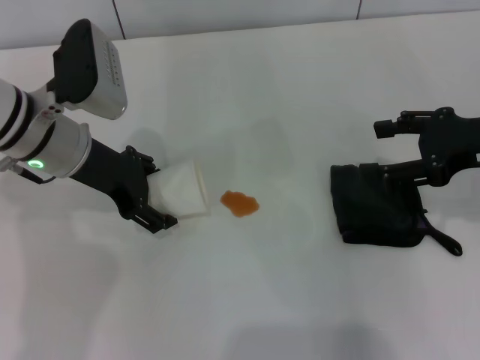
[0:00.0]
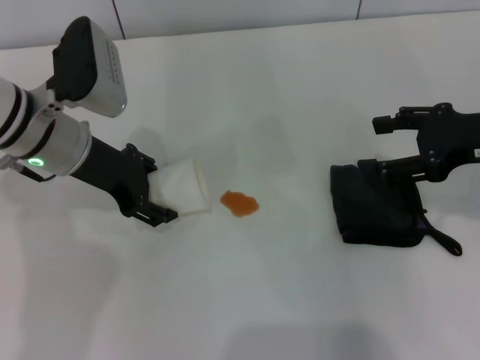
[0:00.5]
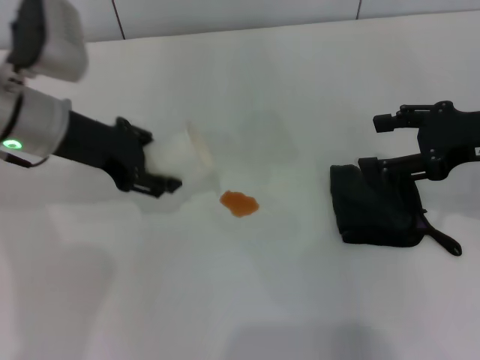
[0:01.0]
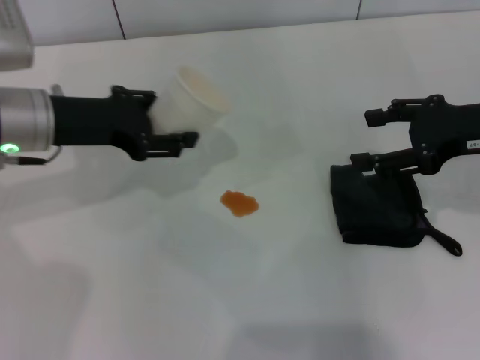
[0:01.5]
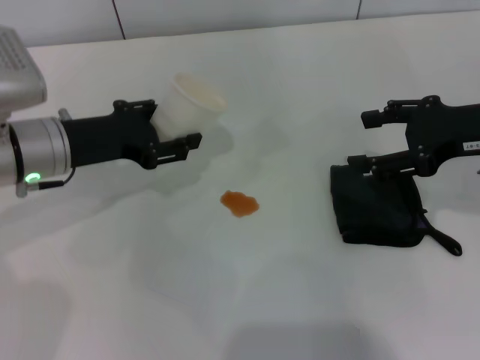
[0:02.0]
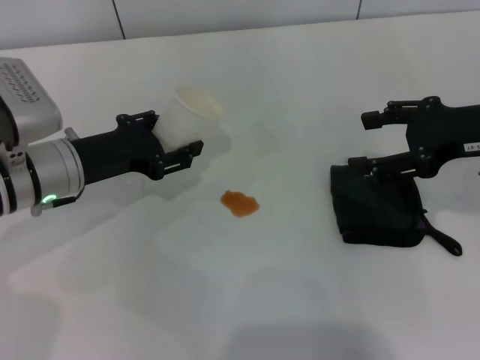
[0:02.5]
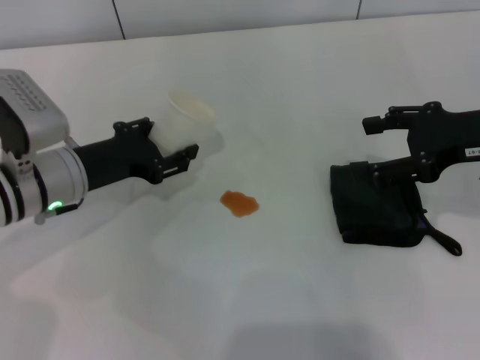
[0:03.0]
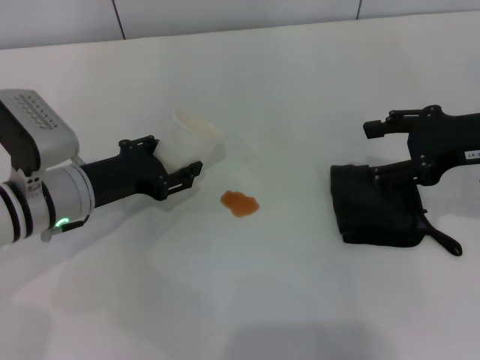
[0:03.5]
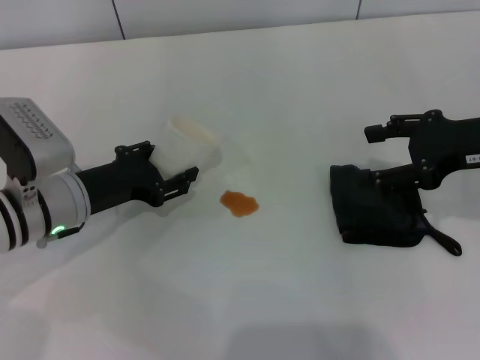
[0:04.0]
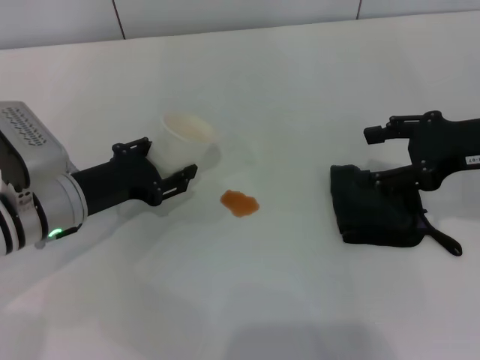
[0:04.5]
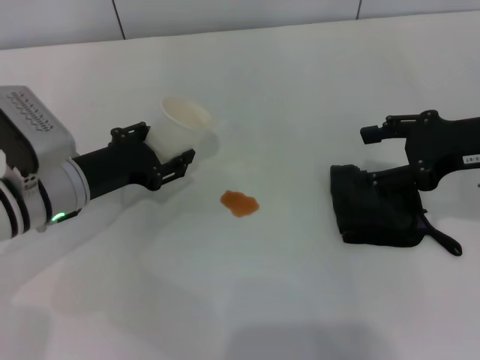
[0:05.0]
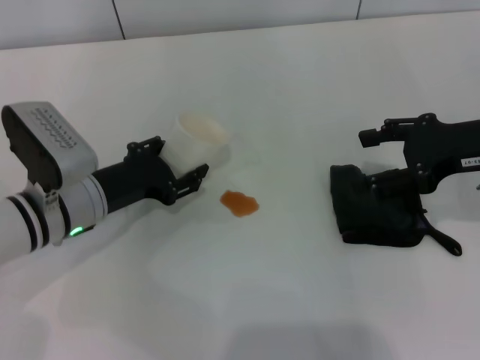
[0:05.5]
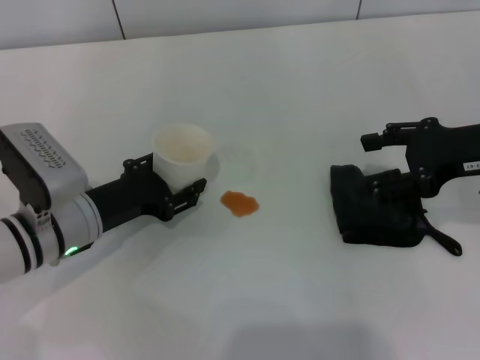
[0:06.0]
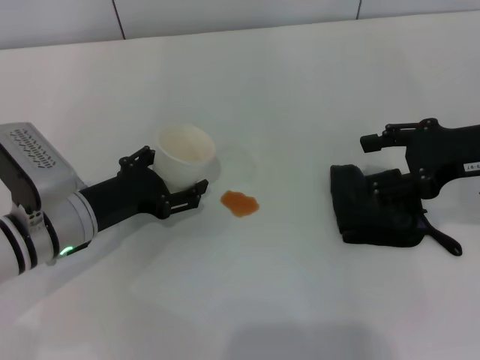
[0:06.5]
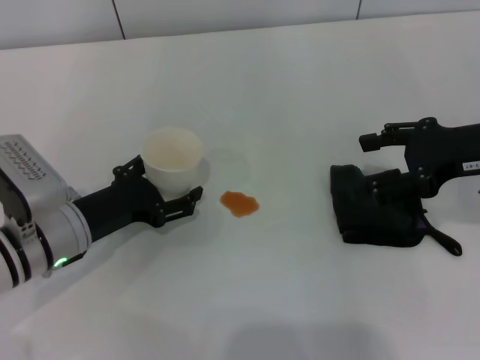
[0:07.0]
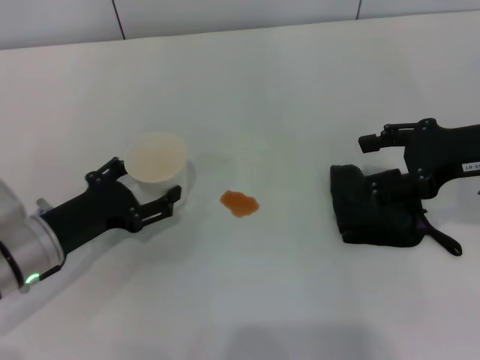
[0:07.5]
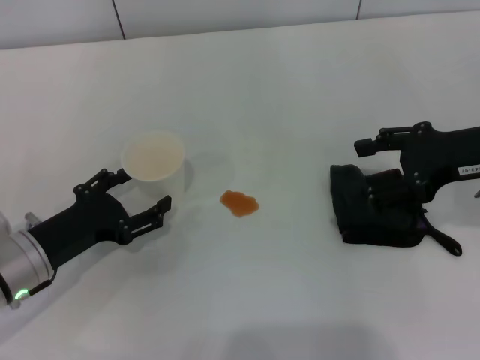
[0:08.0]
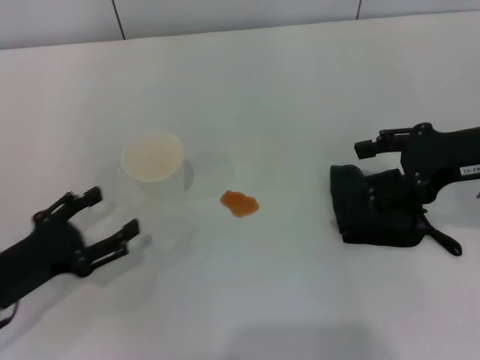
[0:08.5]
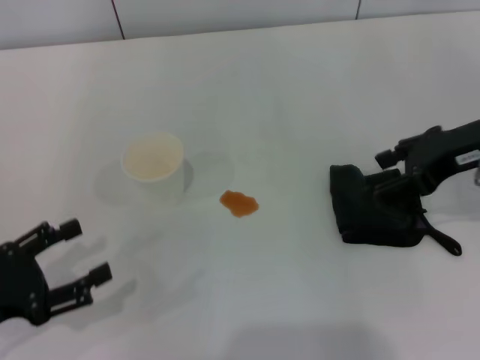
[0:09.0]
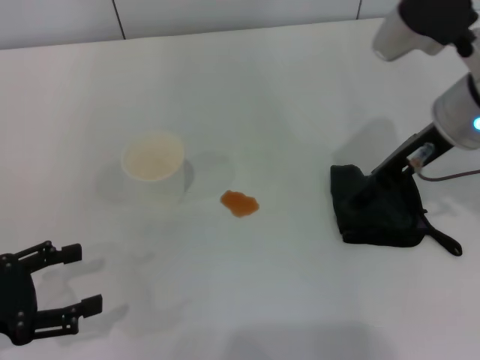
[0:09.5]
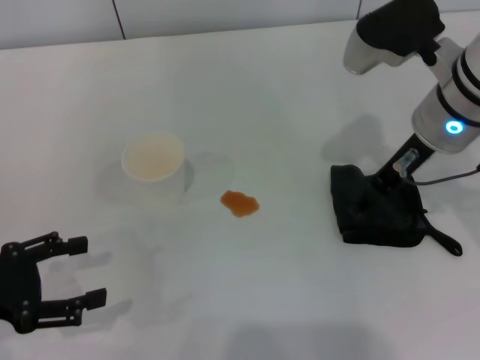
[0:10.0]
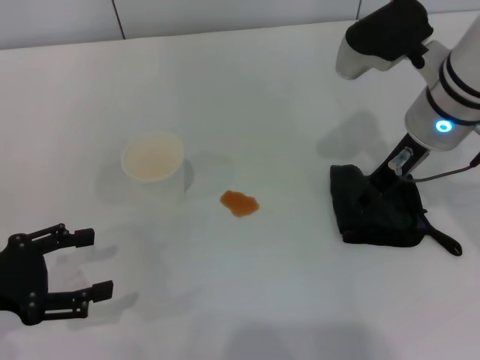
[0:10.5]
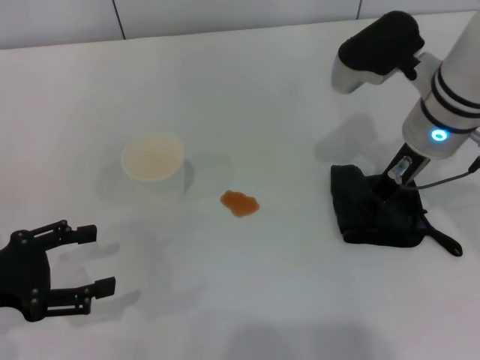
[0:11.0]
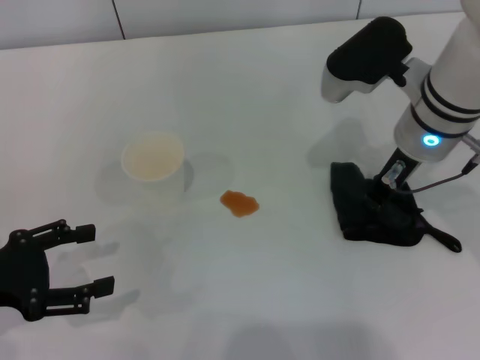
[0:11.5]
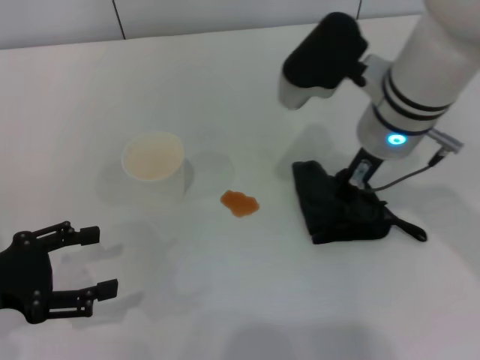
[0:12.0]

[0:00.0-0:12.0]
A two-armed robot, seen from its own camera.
Step, 0:00.5 to 0:08.0: Stand the paper cup upright with the left gripper.
Step, 0:08.5 to 0:11.5: Grasp the rag with the right gripper.
0:00.0 to 0:02.0: The left gripper closes.
0:02.0 to 0:04.0: The left gripper travels downward by approximately 5 cm.
0:04.0 to 0:06.0: The grippers stay close to where they were, moving slightly.
0:06.0 to 0:08.0: The left gripper ends up about 5 cm from where it was, and opens.
0:08.0 to 0:10.0: The right gripper moves to the left and forward, about 10 cm. The left gripper heads to the left and upward, covering some 10 cm.
0:10.0 to 0:12.0: The right gripper shifts about 5 cm to the left, and closes.

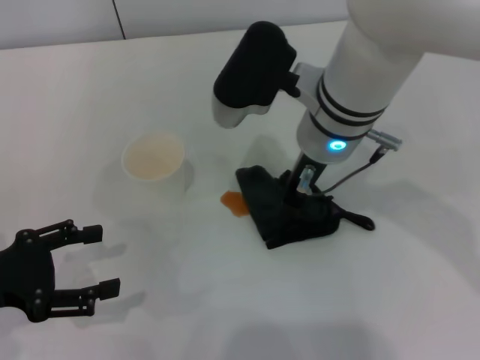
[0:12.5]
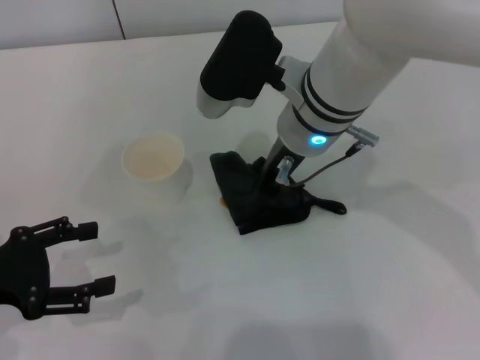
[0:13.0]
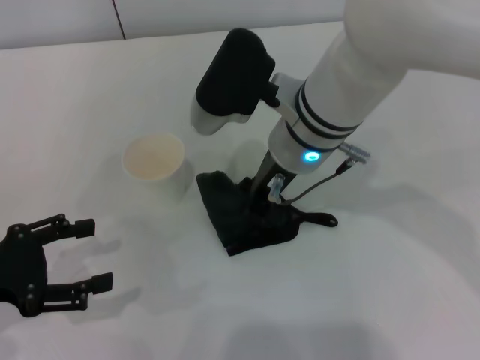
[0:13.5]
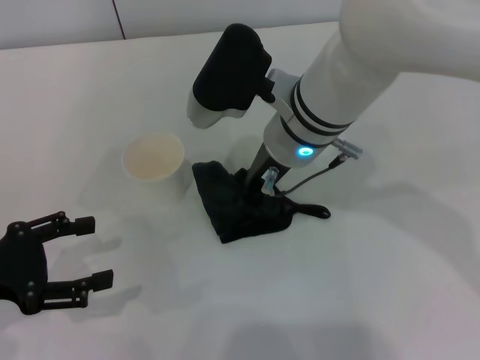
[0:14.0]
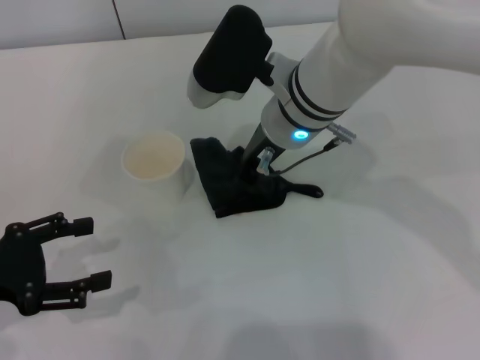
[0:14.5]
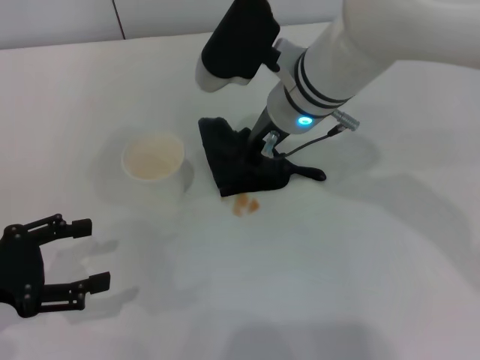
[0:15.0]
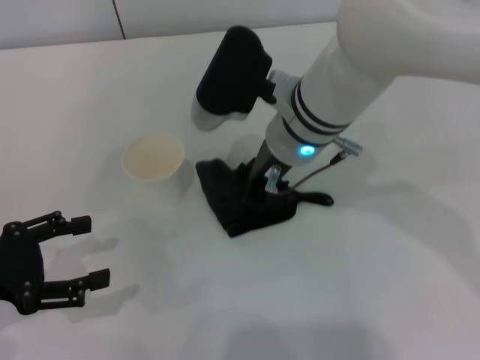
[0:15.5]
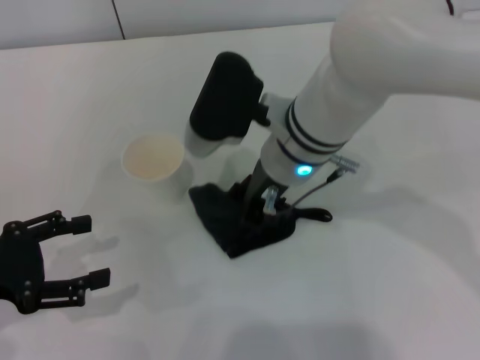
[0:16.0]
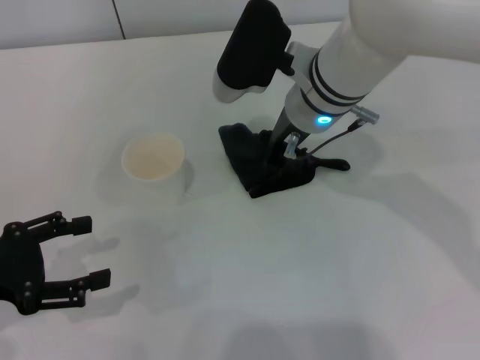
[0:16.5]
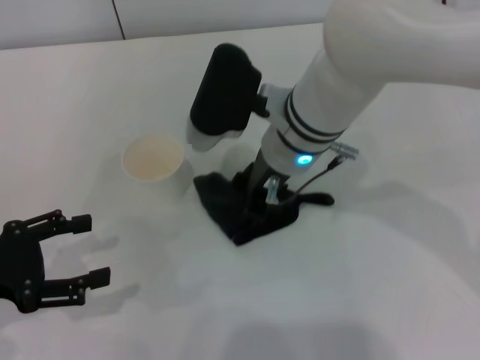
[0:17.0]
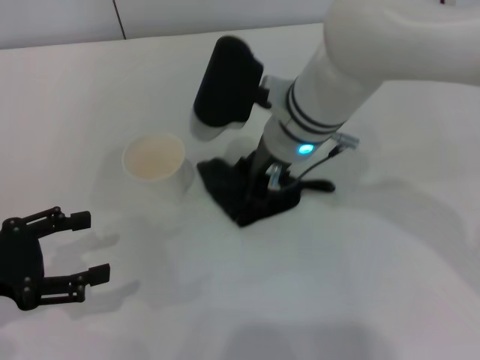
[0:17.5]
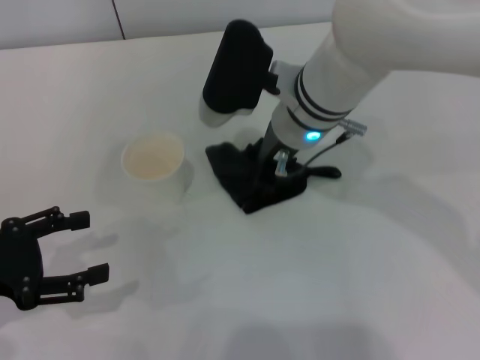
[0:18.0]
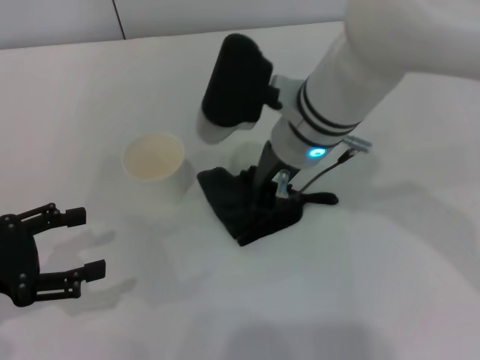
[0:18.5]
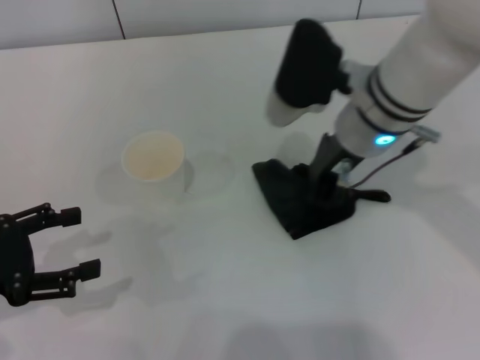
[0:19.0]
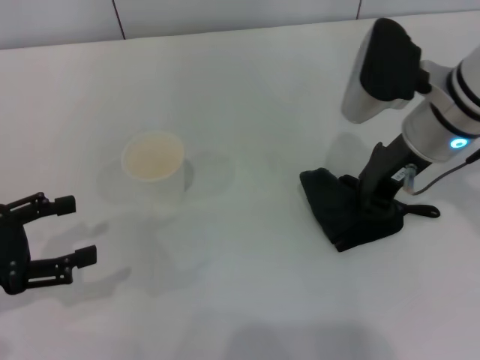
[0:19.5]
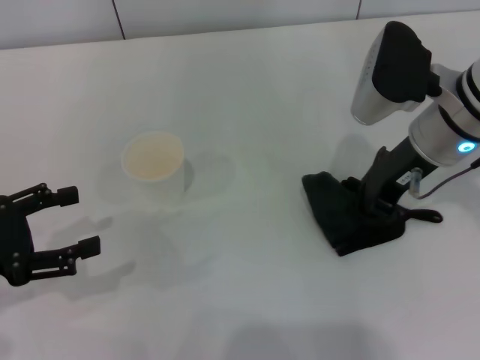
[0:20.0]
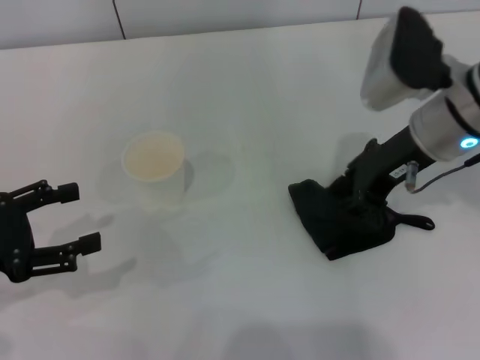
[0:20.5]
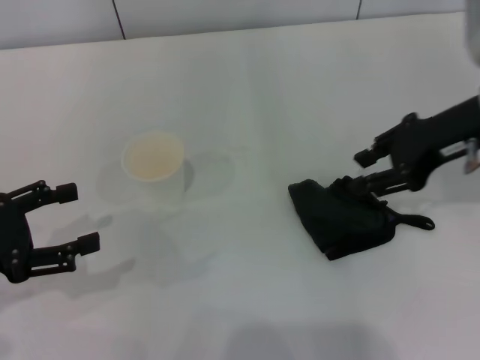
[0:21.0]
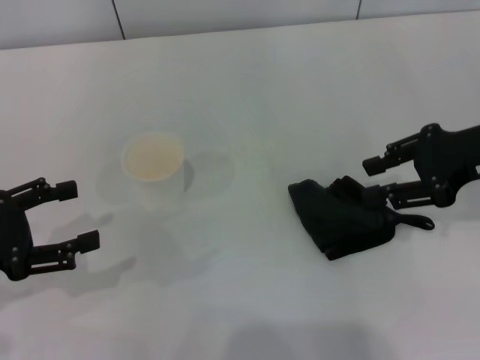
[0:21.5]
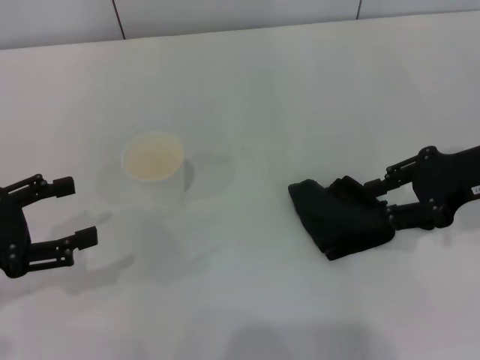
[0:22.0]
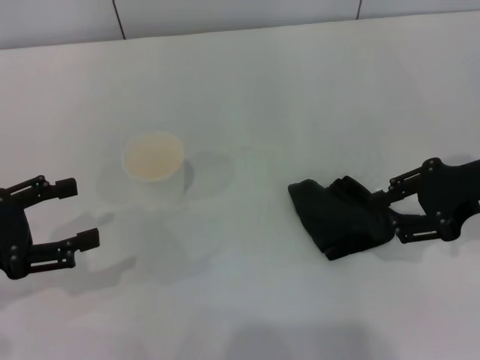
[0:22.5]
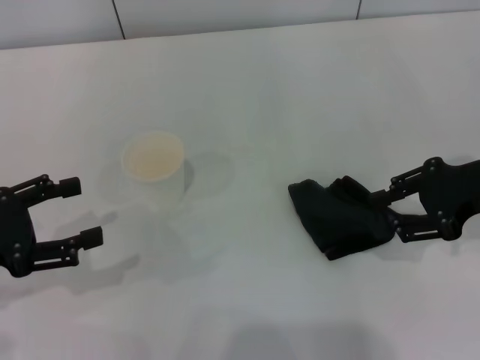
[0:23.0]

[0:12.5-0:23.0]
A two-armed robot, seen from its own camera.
Step, 0:12.5 to 0:19.0: Wipe the stains off the table with the right gripper.
Step, 0:19.5 to 0:20.5: Place the rag on the table with the right gripper.
0:12.5 to 0:16.5: The grippers stay close to where they were, moving slightly.
0:16.5 to 0:19.0: The right gripper moves some 5 cm.
0:19.0 to 0:21.0: The right gripper travels to the right by approximately 15 cm, and opens.
0:21.0 to 0:23.0: The right gripper ends up roughly 5 cm from where it was.
